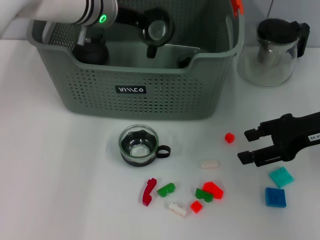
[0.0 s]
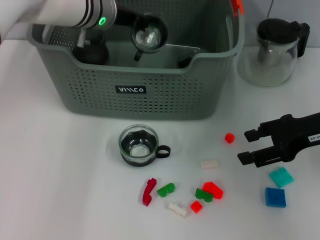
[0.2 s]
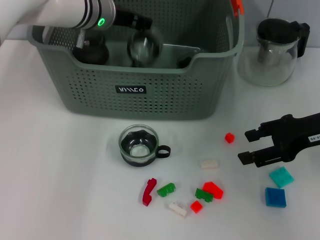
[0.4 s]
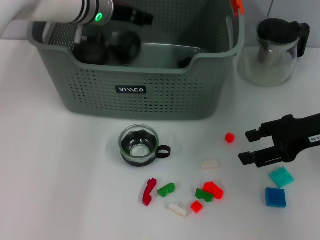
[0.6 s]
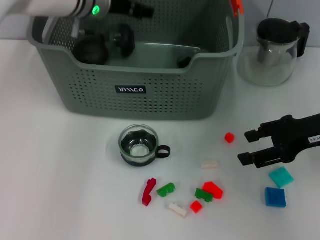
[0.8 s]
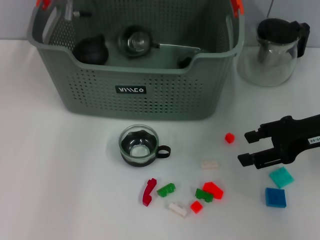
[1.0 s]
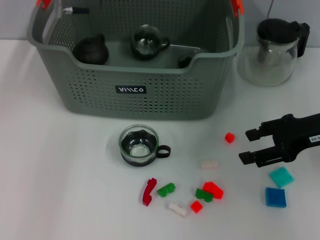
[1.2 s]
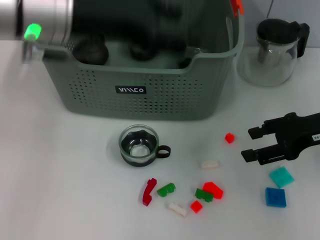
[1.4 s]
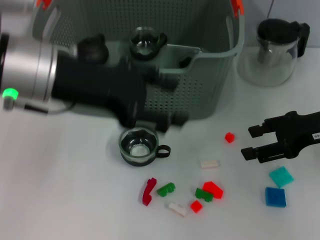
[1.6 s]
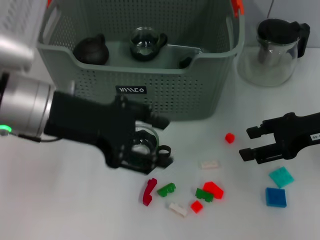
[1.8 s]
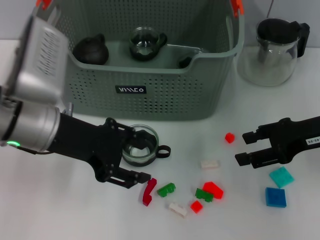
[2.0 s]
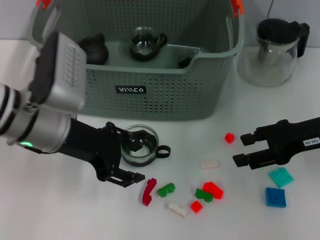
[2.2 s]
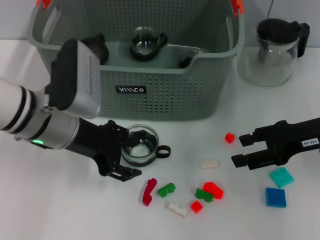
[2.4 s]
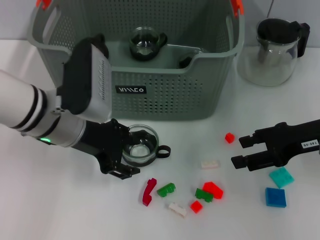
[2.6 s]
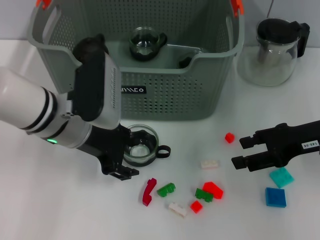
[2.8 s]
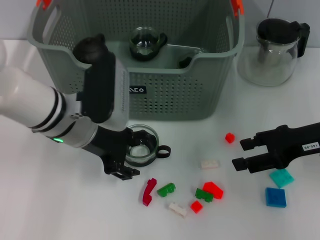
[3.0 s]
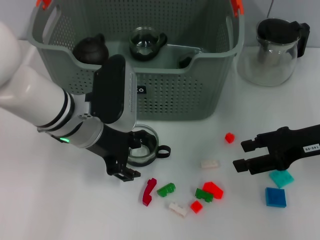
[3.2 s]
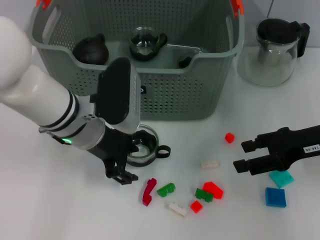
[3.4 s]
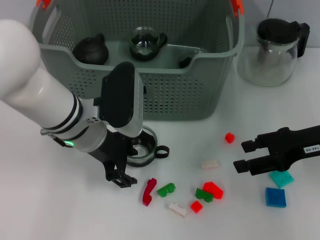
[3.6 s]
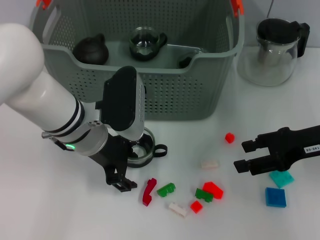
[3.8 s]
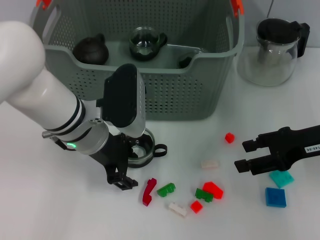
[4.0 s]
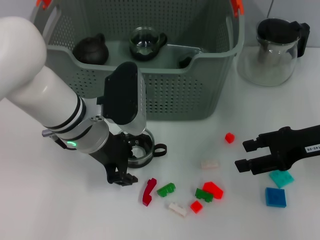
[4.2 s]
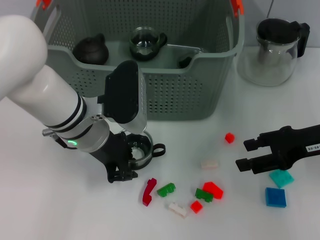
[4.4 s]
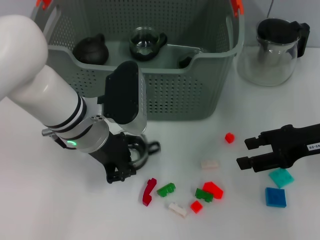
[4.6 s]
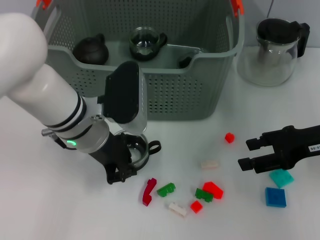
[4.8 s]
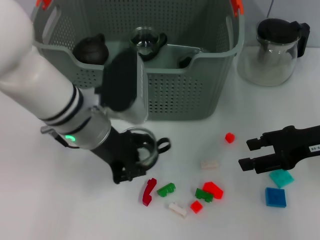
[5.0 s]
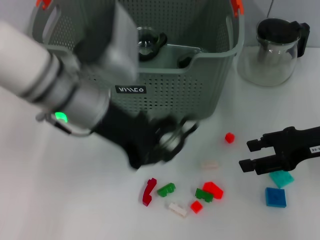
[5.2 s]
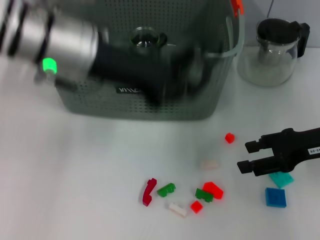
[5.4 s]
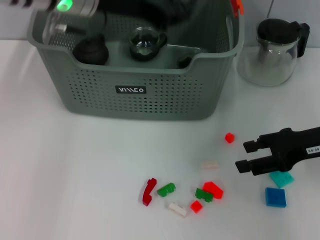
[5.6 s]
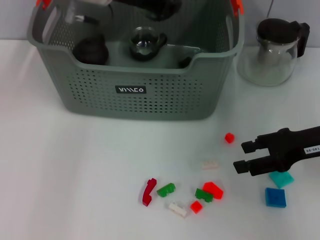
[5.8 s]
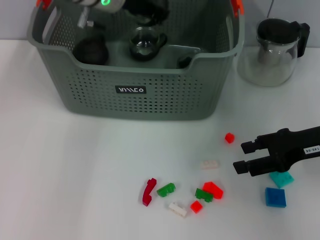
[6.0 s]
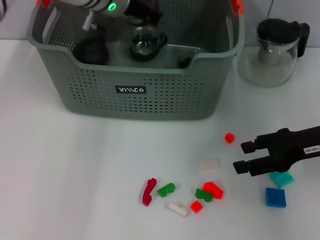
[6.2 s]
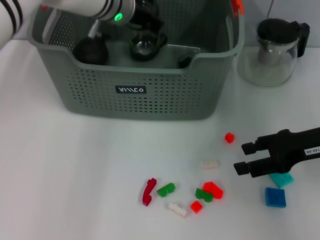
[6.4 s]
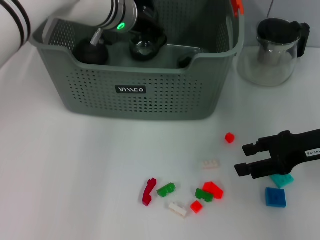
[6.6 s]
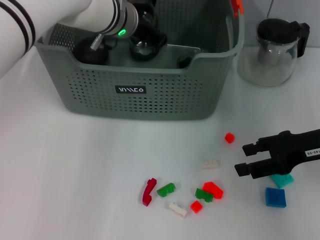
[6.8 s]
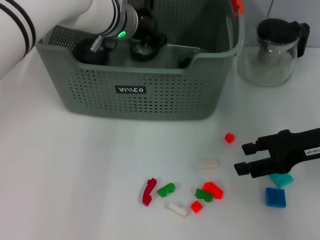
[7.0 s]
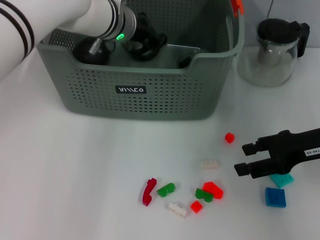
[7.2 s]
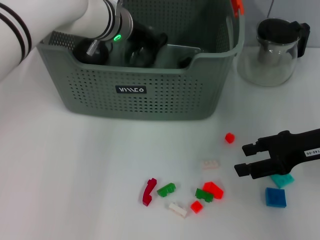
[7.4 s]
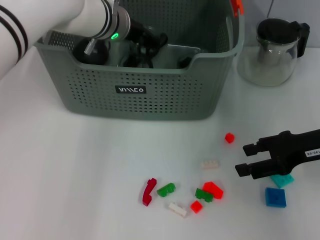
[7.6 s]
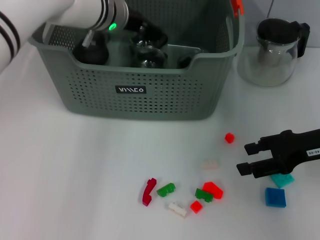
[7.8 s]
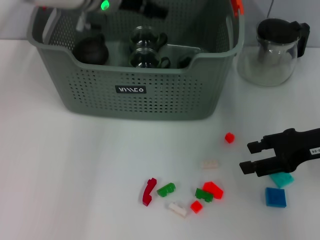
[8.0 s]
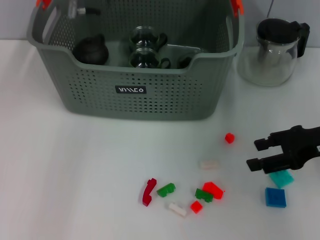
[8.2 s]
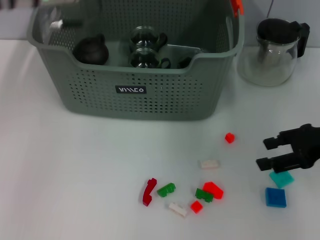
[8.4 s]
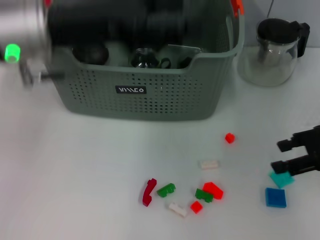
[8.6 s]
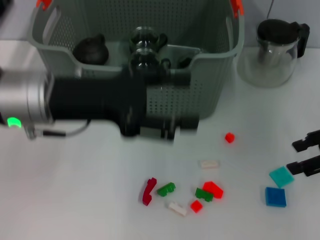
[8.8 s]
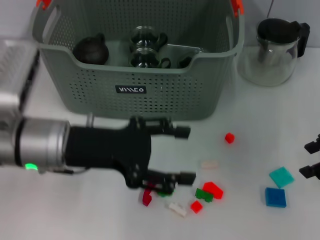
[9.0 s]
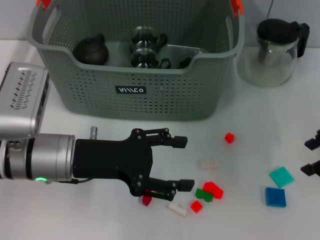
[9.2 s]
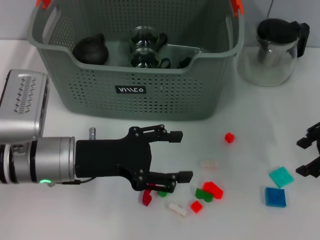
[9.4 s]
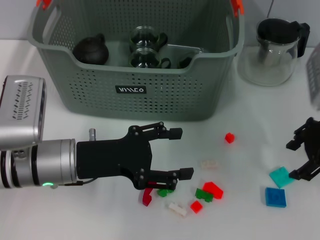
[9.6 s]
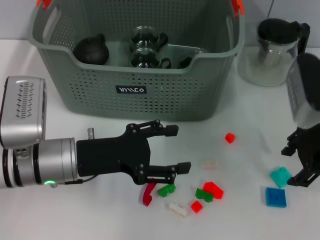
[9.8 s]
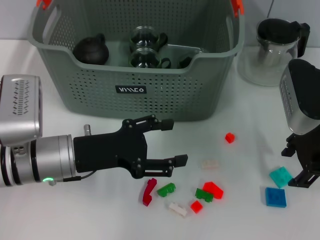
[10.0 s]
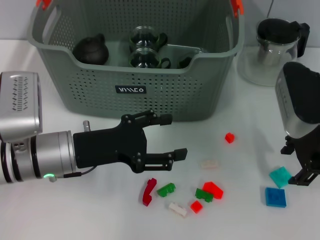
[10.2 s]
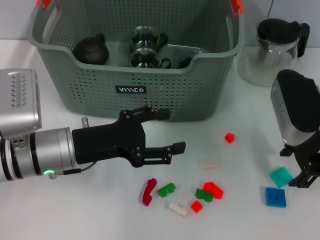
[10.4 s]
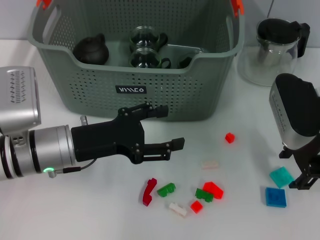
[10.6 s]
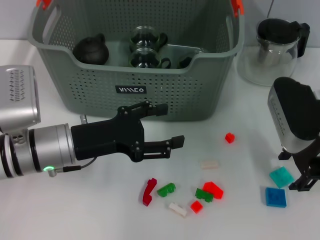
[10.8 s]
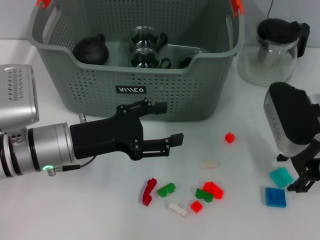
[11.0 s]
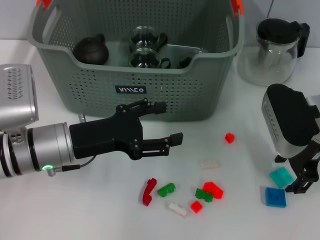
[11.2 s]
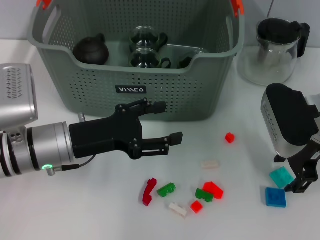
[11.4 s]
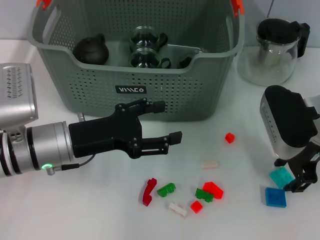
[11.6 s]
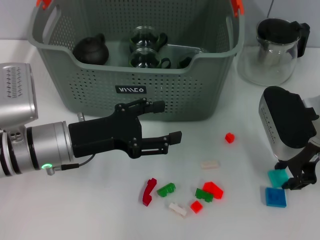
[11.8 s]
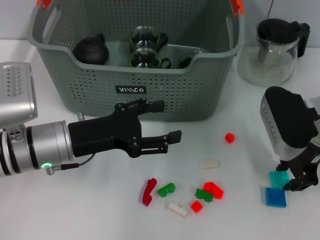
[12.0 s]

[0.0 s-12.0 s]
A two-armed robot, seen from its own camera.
Task of the whole recording: pick up the teacup on the table and place it into the storage bin, pick up the block on the table and place it into the storage bin.
Step, 0.8 to 4.6 s: Grasp the cup with left gripper.
Step, 4.8 to 7.8 s: Place the cup in the storage box with left gripper.
Step, 8.0 to 11.8 s: Grasp the light blue block with right gripper.
0.0 to 1.6 s: The left gripper heads backward, covering some 15 cm, and opens.
1.6 to 3.0 s: The left gripper shifts some 10 cm downward.
3.0 to 4.4 s: The grippers move only a little.
4.4 to 6.0 s: The left gripper travels forward and upward by roughly 15 cm, and closes.
6.0 to 7.6 s: The left gripper moves downward, about 5 cm, and opens its fingers.
7.6 to 9.0 s: The left gripper travels backward and to the left by approximately 20 cm, and opens; the right gripper travels to the right by approximately 5 cm.
9.0 to 10.4 s: The right gripper moves to the left, some 10 cm.
10.4 to 12.0 s: The right gripper closes its fingers.

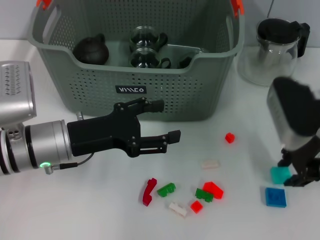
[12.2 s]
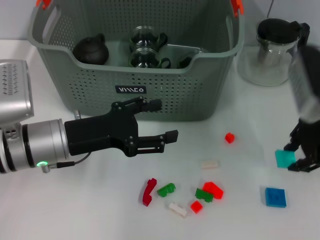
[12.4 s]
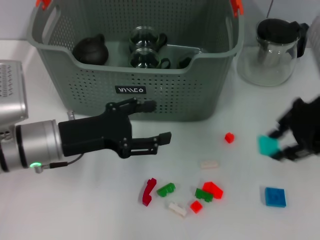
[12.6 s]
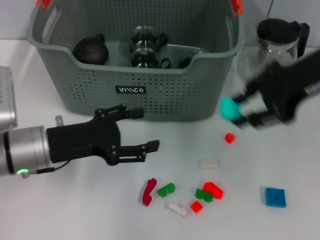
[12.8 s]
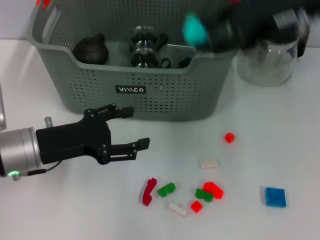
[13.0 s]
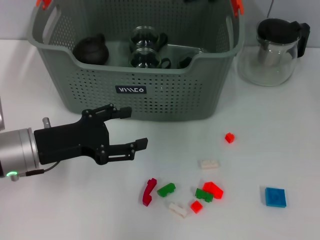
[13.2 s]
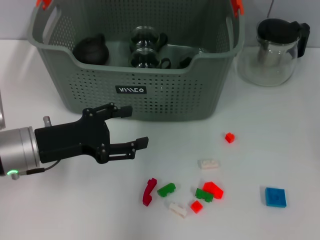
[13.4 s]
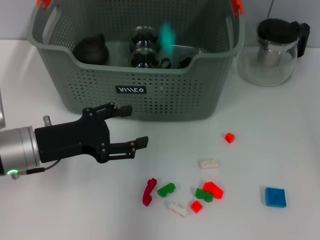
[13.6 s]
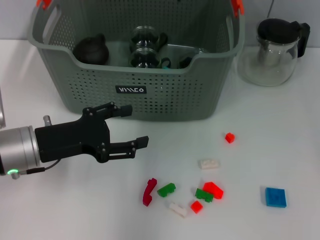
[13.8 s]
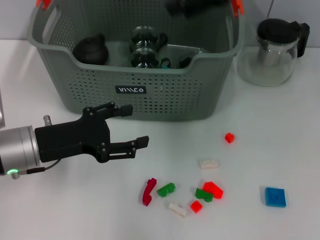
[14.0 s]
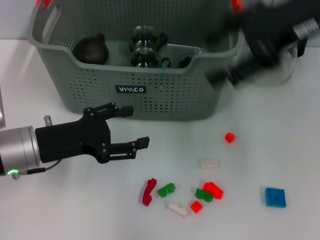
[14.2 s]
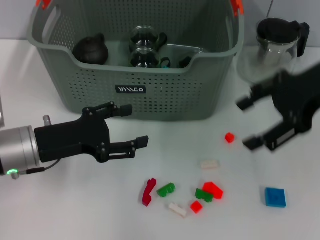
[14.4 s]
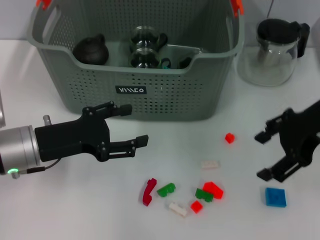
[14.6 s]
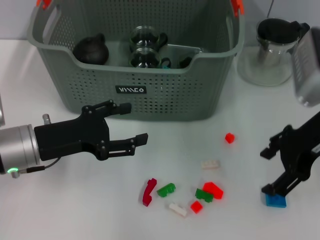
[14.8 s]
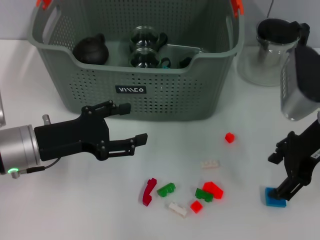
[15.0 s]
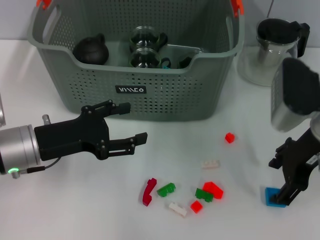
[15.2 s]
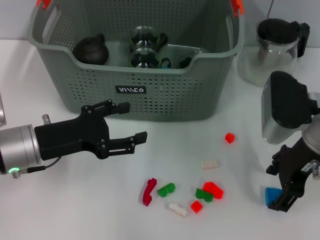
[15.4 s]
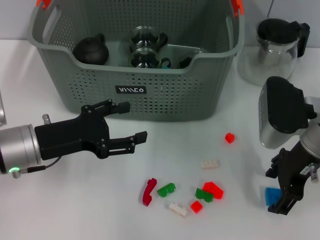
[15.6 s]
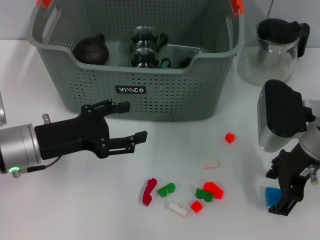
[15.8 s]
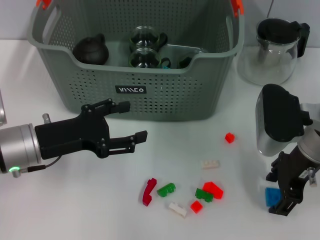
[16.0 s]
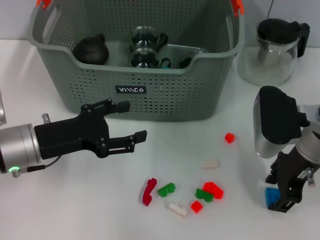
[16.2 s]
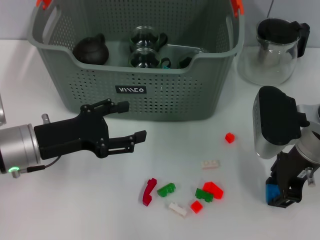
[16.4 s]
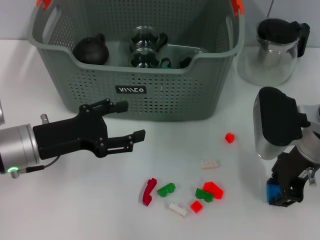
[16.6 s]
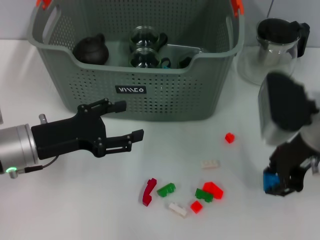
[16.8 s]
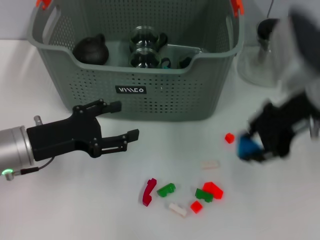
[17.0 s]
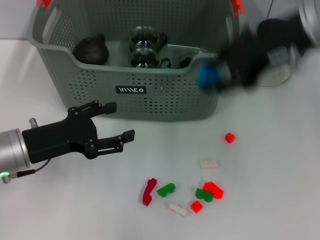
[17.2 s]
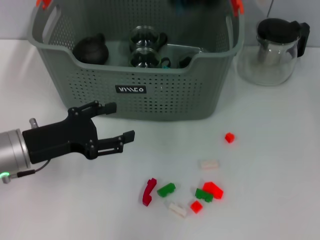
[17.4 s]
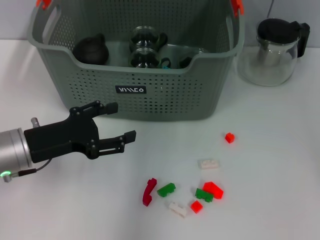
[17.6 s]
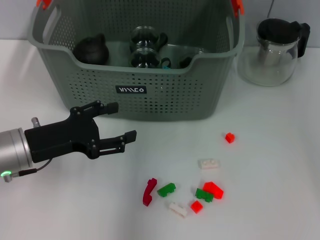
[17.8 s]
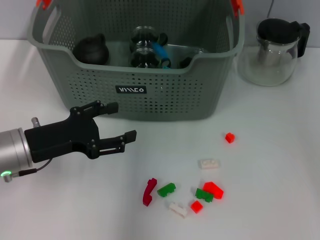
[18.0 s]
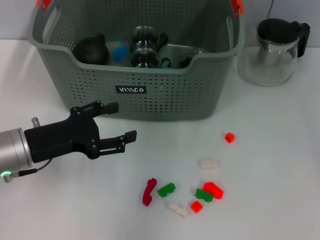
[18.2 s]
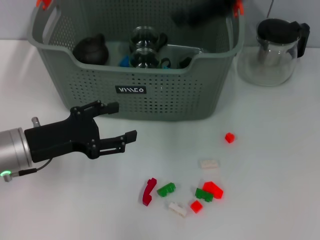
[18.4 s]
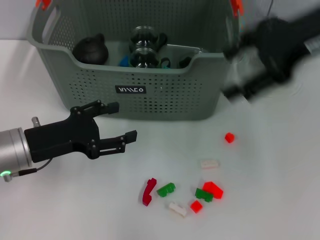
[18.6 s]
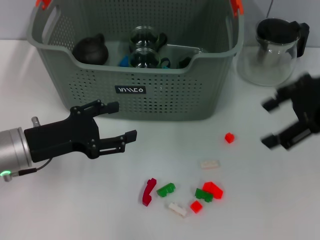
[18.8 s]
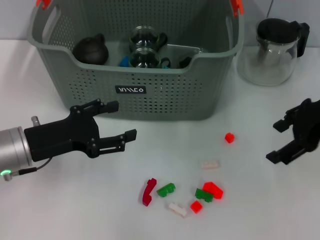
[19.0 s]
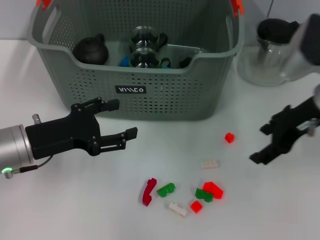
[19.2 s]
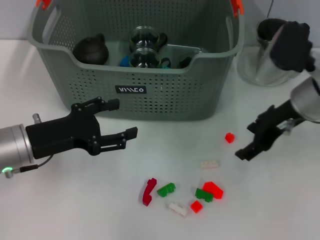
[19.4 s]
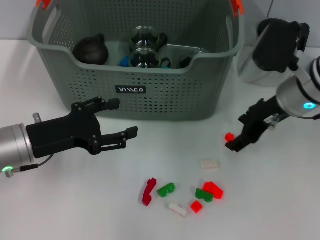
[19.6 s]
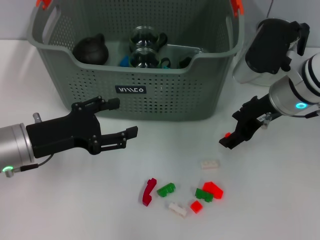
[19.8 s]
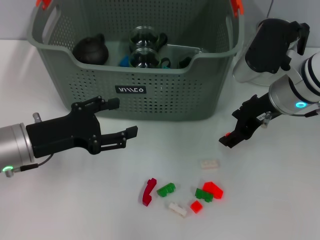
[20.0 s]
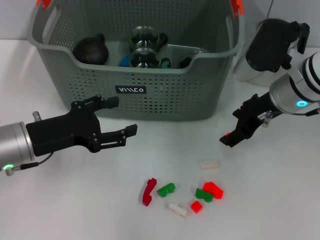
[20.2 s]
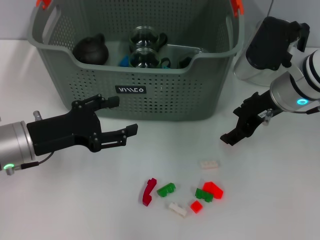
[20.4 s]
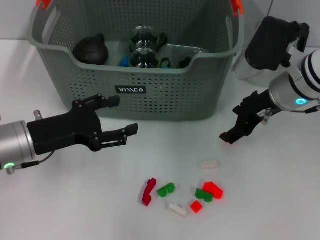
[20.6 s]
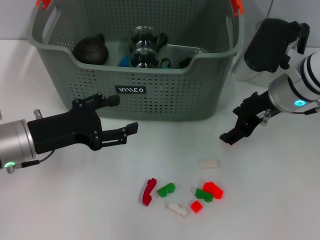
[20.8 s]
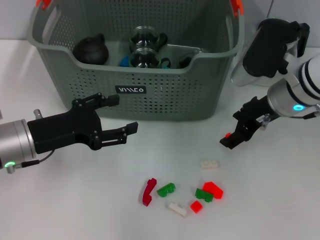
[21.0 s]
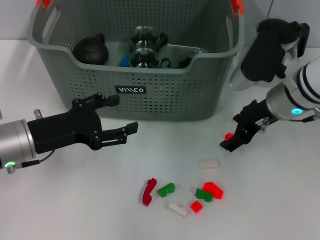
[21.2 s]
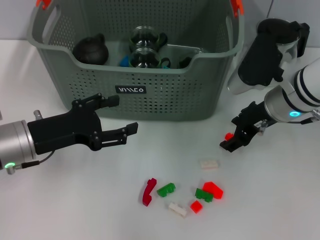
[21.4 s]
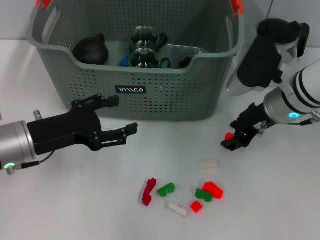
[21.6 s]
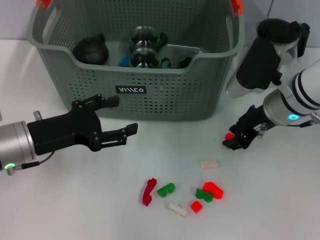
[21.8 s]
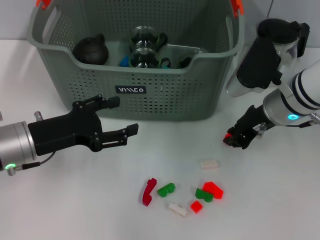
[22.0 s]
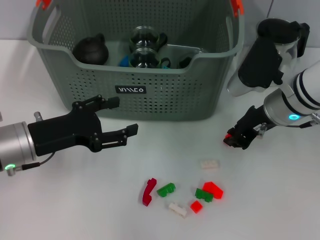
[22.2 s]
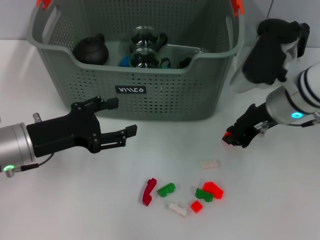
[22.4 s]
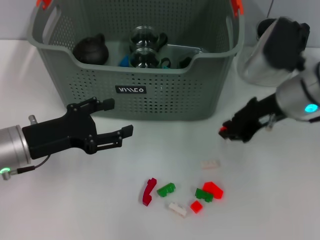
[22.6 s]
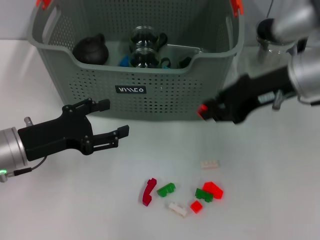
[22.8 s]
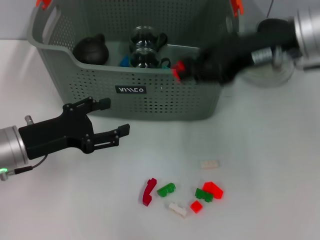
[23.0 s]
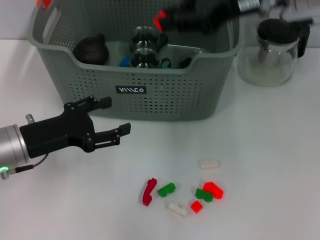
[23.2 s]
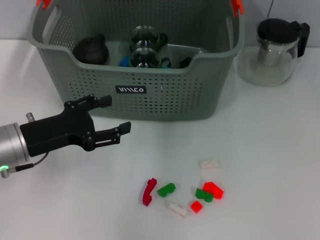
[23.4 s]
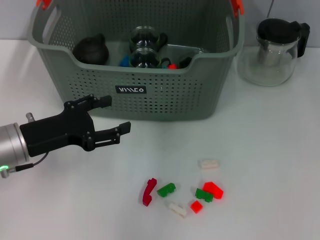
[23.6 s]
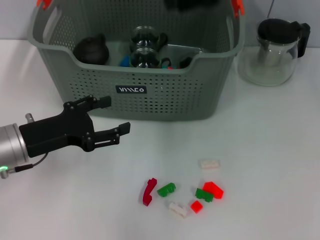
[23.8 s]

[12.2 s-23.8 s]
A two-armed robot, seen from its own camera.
Task of the whole recording: pick up the teacup on the table and place it into the storage bin, pick up the block on the table and place it into the storage bin.
Step, 12.2 to 13.6 s: Place the light blue block in the storage box with right gripper.
Step, 14.0 to 16.4 s: Grasp the dark blue block with right gripper.
Step, 16.8 to 18.2 s: Place the dark blue block in the storage box with right gripper.
Step, 18.4 to 22.0 s: Grasp the orange block with right gripper.
Step, 22.2 to 23.6 s: Place the orange block in the storage box with right gripper.
12.2 to 13.6 s: The right gripper moves upward, forward and to the left, roughly 20 cm.
13.6 to 15.0 s: The right gripper shifts some 20 cm downward, backward and to the right, and opens.
15.0 to 16.6 s: The right gripper closes its fingers.
16.6 to 18.0 s: The right gripper moves upward, forward and to the left, about 25 cm.
18.0 to 19.4 s: The right gripper goes approximately 20 cm downward, to the right and backward, and opens its fingers.
19.4 to 21.0 s: The grippers stay close to where they were, moving slightly.
21.0 to 22.4 s: The right gripper closes.
22.4 to 23.8 s: The right gripper heads upward, covering roughly 20 cm.
